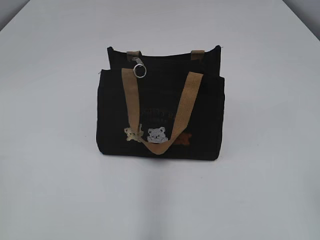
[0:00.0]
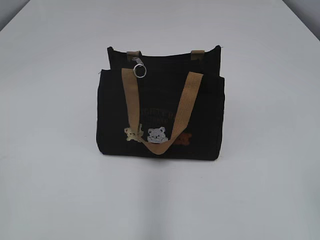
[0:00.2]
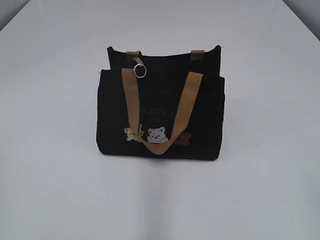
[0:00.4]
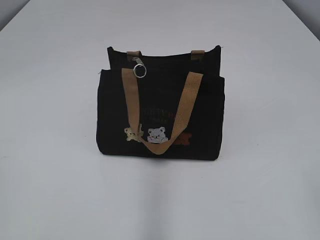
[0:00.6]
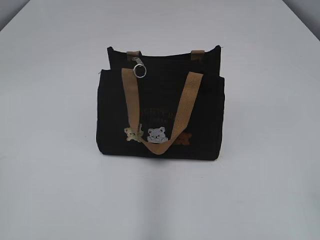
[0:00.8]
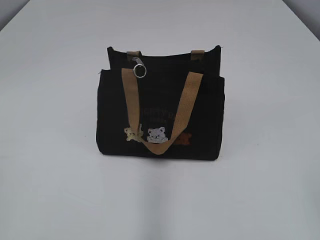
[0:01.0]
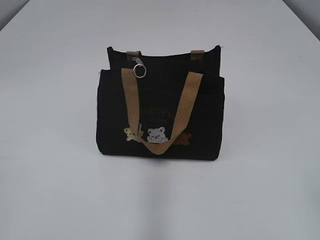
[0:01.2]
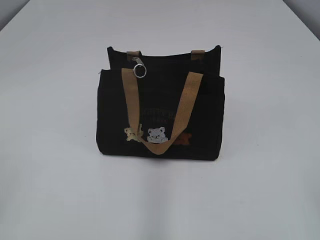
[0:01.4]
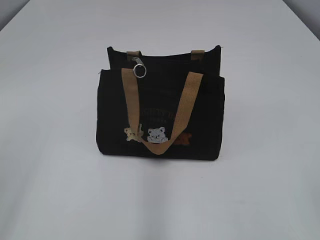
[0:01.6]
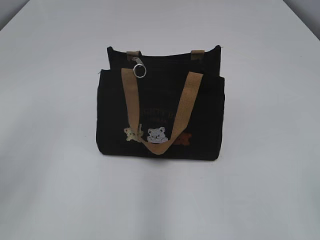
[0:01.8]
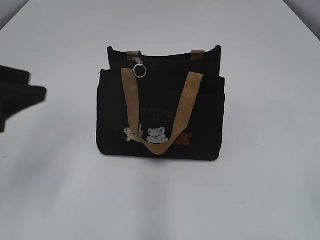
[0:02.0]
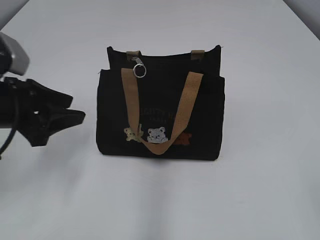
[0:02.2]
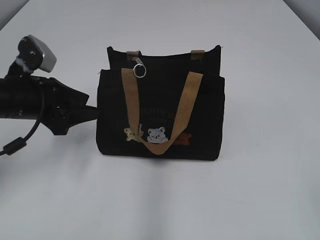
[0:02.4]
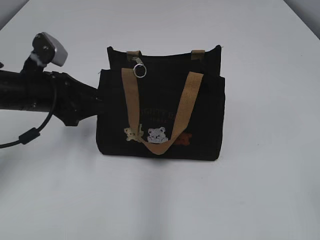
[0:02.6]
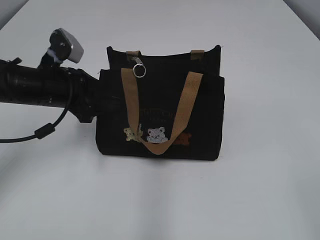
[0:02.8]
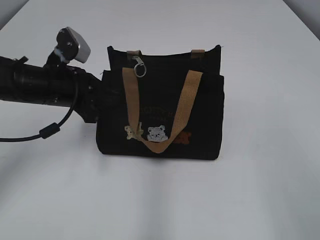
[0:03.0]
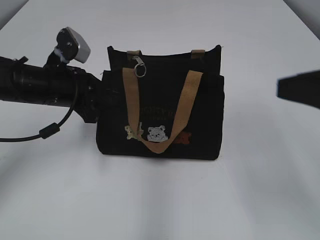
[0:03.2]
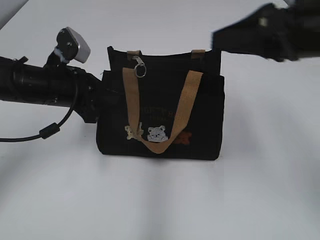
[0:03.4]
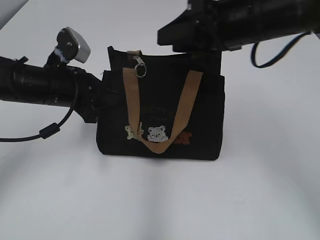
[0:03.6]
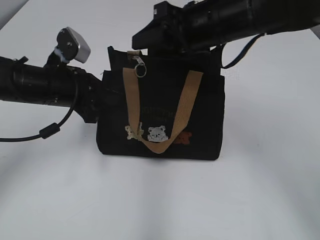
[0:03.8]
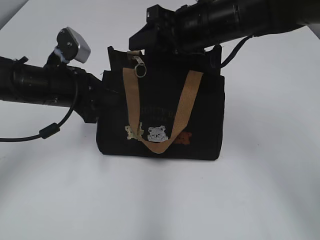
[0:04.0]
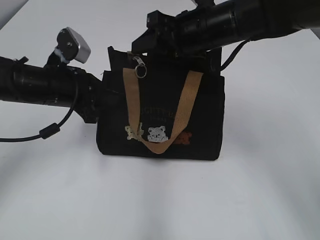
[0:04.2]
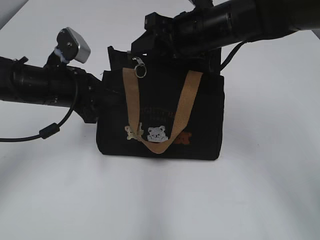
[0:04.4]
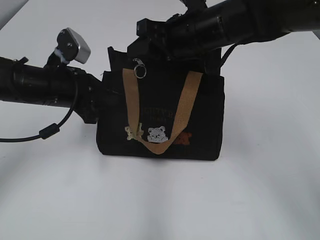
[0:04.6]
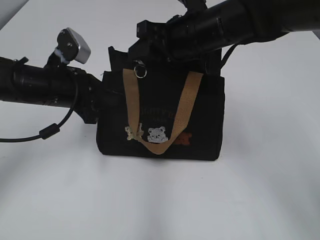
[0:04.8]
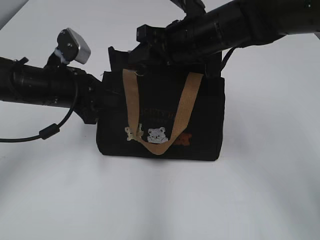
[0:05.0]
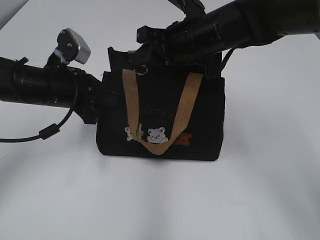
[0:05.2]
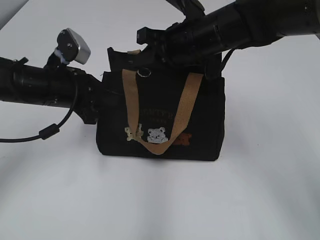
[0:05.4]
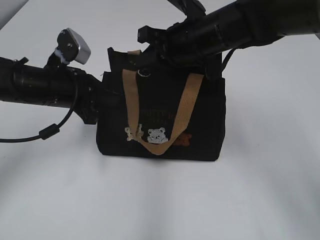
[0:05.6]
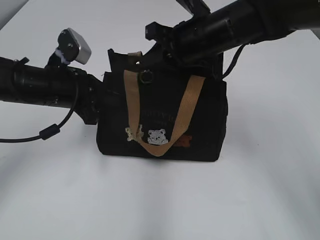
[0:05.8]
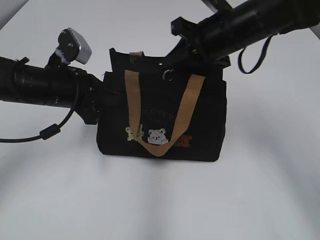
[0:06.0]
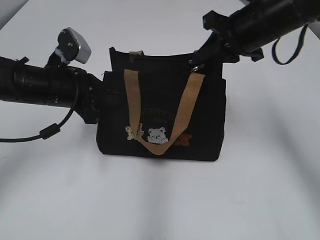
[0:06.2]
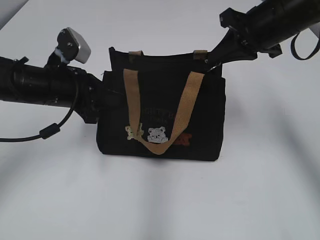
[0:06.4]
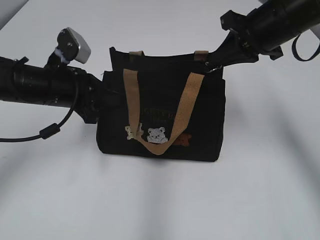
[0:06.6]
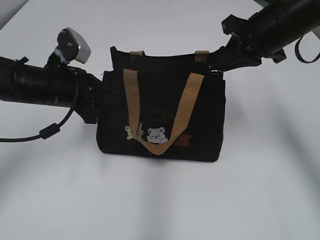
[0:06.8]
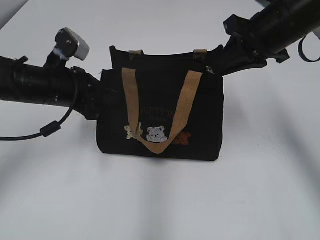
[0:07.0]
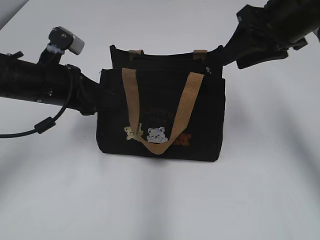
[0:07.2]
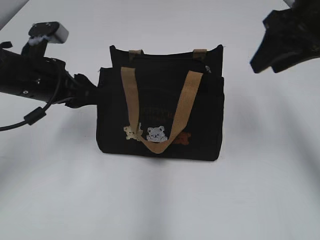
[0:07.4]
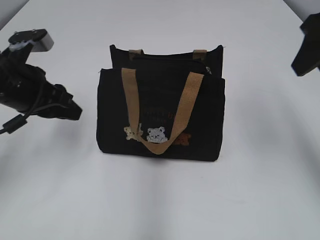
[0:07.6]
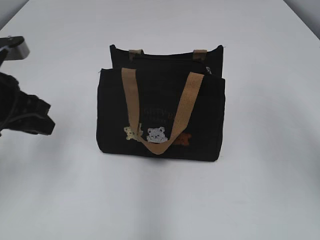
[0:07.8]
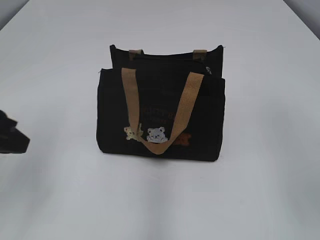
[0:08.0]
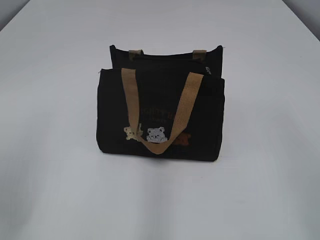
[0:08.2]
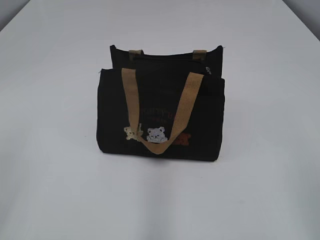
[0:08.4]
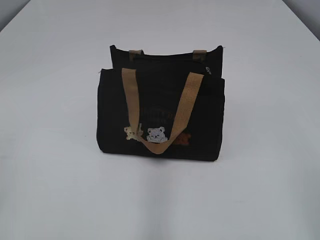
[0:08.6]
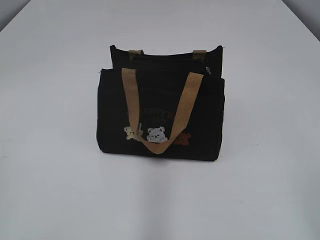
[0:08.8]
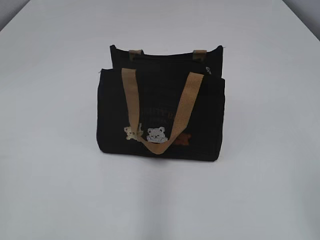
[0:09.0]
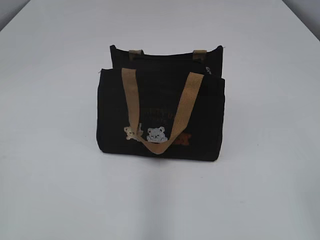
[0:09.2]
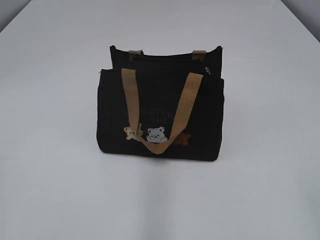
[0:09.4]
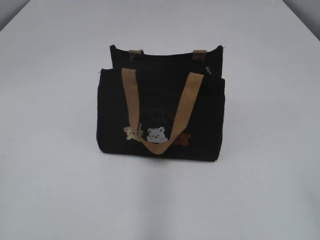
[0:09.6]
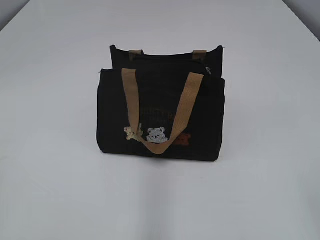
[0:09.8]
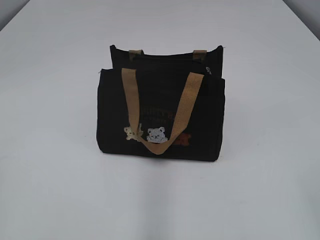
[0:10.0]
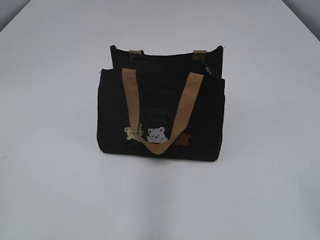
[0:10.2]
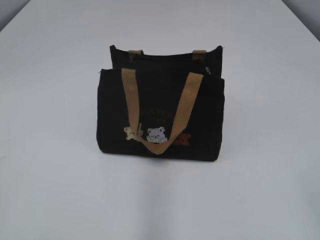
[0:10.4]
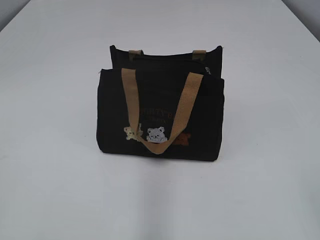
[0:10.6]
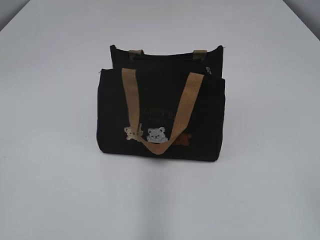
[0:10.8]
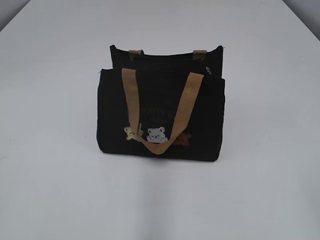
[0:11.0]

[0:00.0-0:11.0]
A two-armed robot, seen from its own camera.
Step, 0:00.0 to 0:07.0: Pull open the zipper with your right hand.
Step, 0:07.2 to 0:07.4: Hold the bag with your left hand.
0:01.6 to 0:03.2: The right gripper moves forward, about 10 cm. The left gripper moves forward and downward, some 35 cm, and closes.
0:03.2 to 0:04.8: The right gripper travels forward and to the left by roughly 30 cm.
0:04.8 to 0:06.2: The right gripper goes approximately 5 cm to the right, and closes up.
0:06.2 to 0:07.8: The right gripper moves upward, backward and to the right, approximately 15 cm, and opens its fingers, while the left gripper changes place by roughly 10 cm, and opens.
0:07.8 to 0:09.4: Both grippers travel together backward, some 30 cm.
